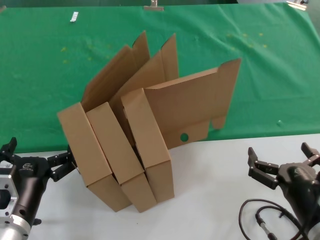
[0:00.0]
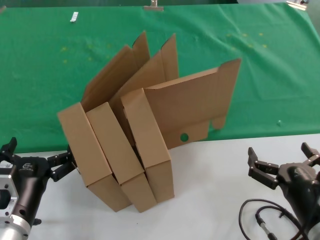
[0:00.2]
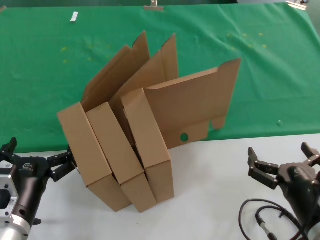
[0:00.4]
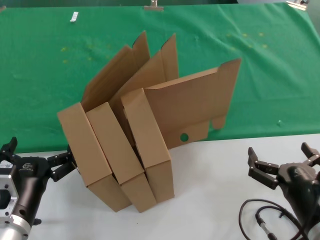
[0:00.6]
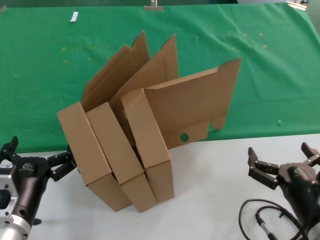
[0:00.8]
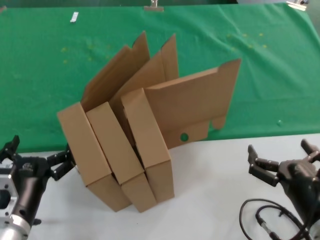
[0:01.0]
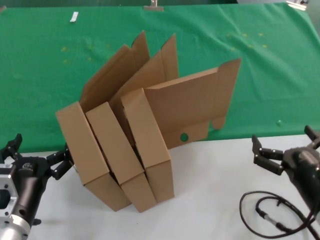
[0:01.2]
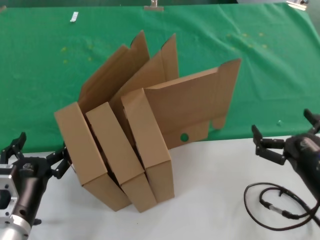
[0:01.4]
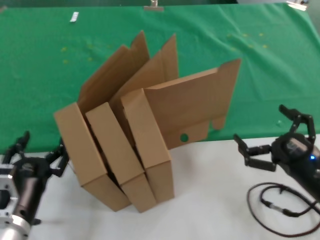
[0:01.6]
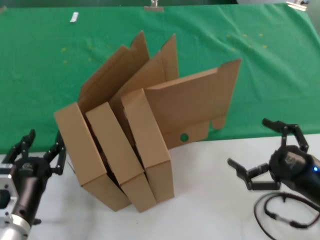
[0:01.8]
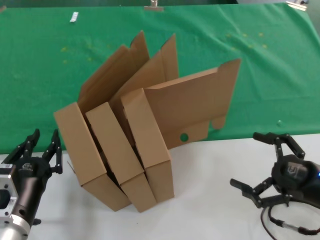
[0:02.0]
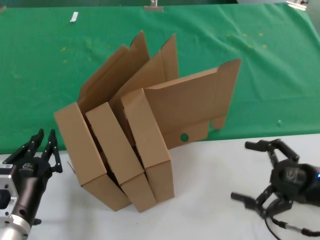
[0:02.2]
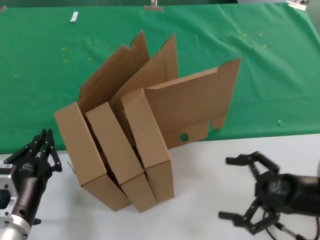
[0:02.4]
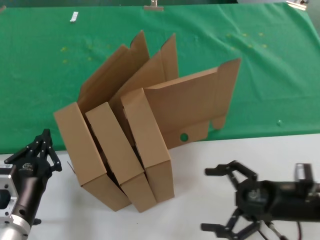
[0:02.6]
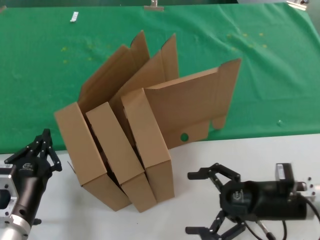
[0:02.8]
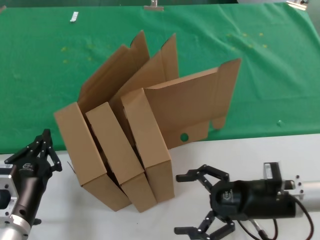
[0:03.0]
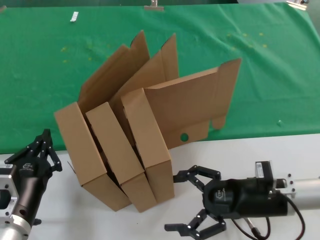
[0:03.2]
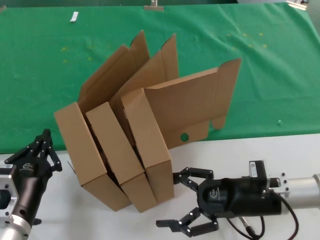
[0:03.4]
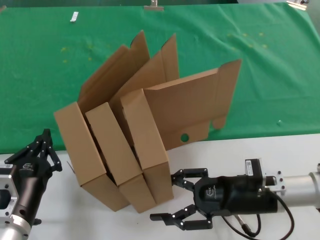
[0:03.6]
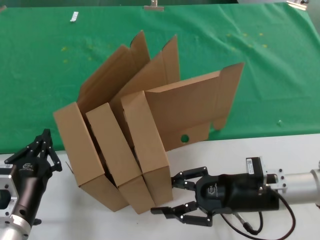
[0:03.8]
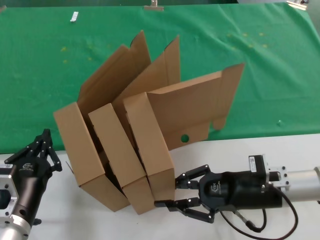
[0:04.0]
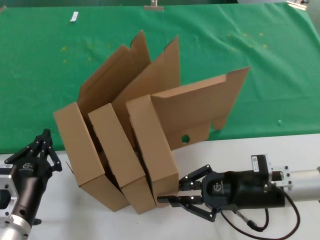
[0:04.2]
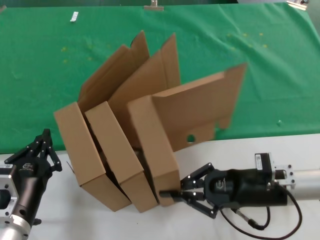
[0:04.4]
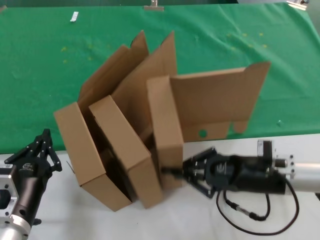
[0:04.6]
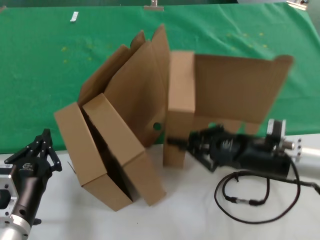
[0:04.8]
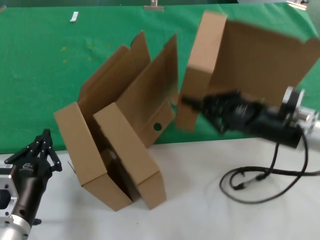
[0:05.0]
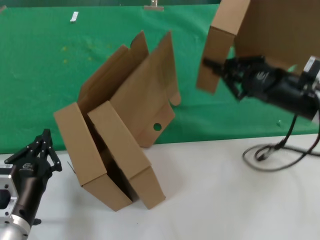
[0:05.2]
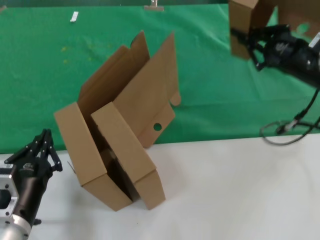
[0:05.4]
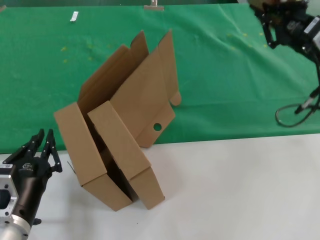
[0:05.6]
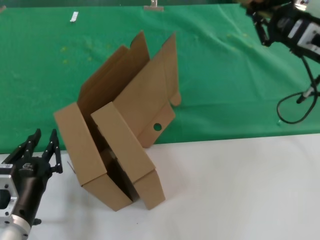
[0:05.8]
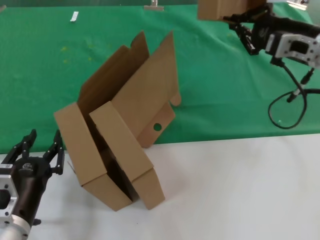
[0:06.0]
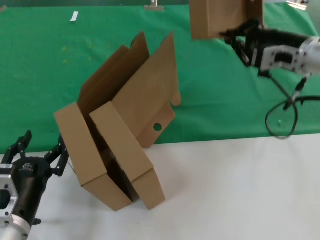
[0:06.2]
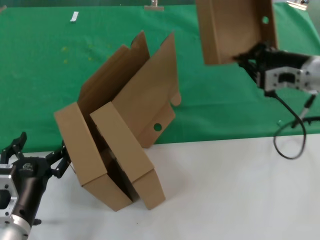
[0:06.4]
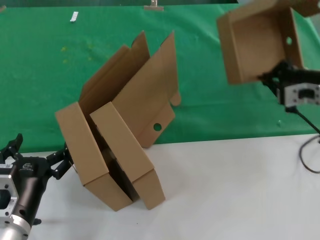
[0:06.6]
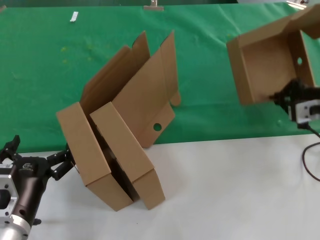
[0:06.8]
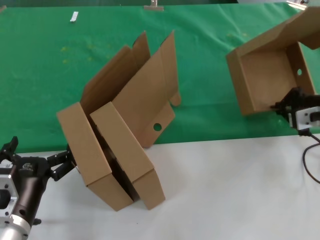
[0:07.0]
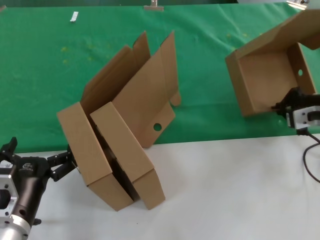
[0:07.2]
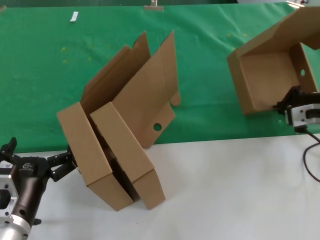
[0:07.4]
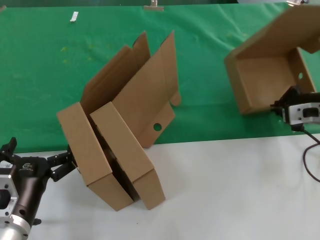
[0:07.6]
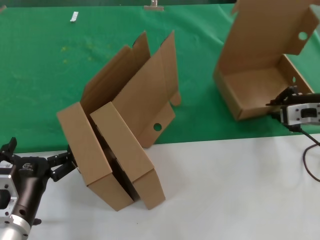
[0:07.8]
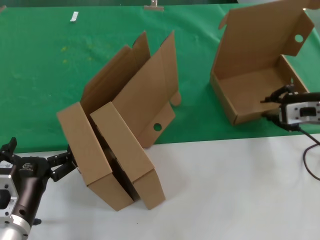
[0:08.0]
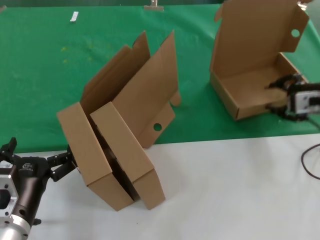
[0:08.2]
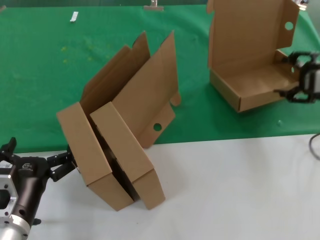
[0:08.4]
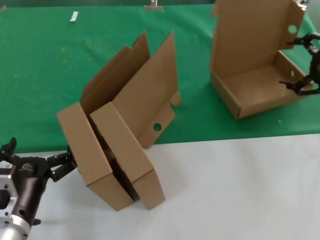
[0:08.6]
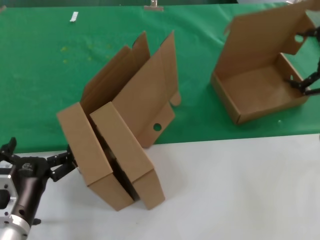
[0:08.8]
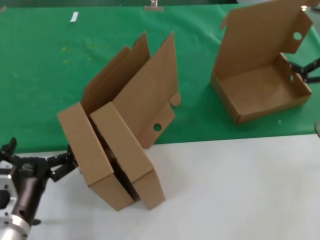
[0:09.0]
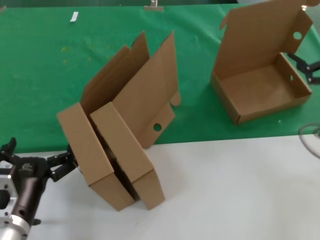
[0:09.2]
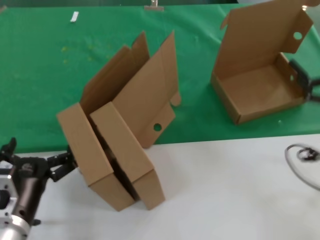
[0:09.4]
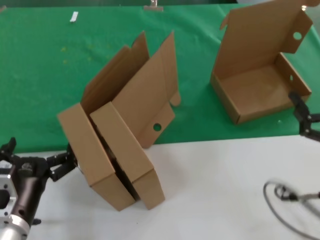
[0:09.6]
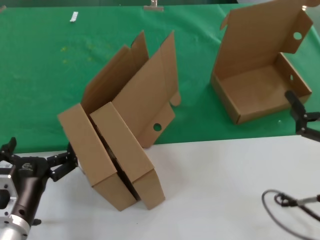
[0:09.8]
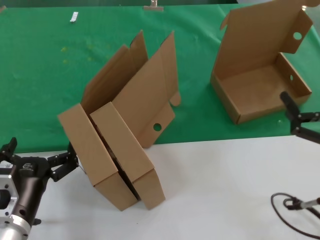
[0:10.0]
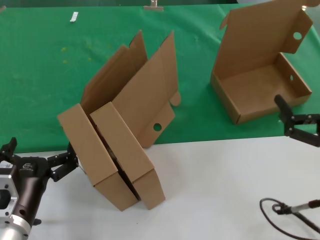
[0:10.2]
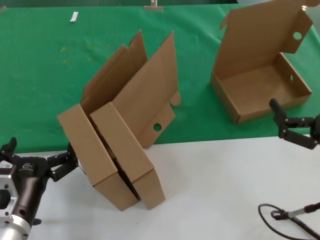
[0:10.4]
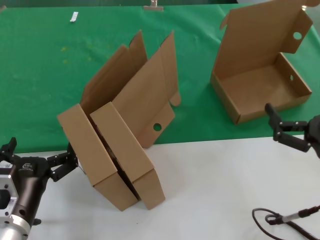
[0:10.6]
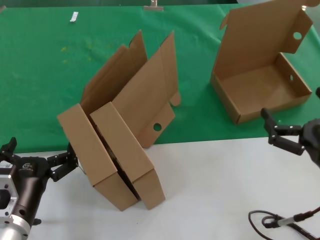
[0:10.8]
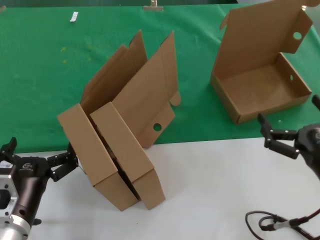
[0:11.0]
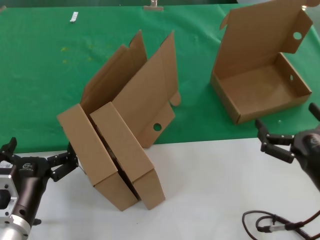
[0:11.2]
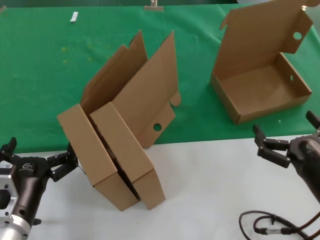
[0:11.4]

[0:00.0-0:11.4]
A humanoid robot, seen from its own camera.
Task of the whole recording: pick up the paper box and put it at the back.
Step, 0:00.0 to 0:04.4: Grasp the paper box.
Step, 0:04.6 to 0:08.6: Place the paper box on the table.
0:00.0 to 0:01.4: The right hand shifts by roughly 5 cm.
0:01.4 to 0:02.8: The right hand shifts approximately 10 cm forward.
0:02.8 to 0:04.2: The right hand moves some 5 cm.
0:04.2 to 0:05.6: The right hand travels upward and to the right by roughly 20 cm.
0:05.6 to 0:07.2: The right hand moves downward, about 5 cm.
0:07.2 to 0:08.6: The right hand goes about 10 cm upward and to the right.
0:08.6 to 0:10.0: The right hand is displaced backward and downward by about 25 cm.
0:10.0 to 0:11.4: The right hand travels to the left by some 5 cm.
